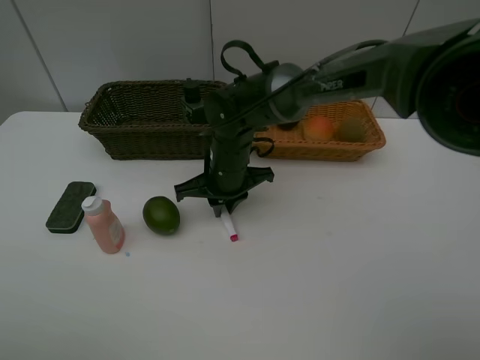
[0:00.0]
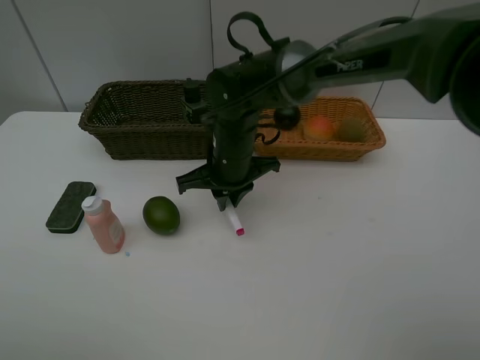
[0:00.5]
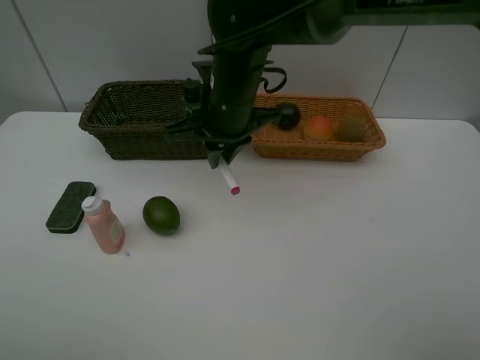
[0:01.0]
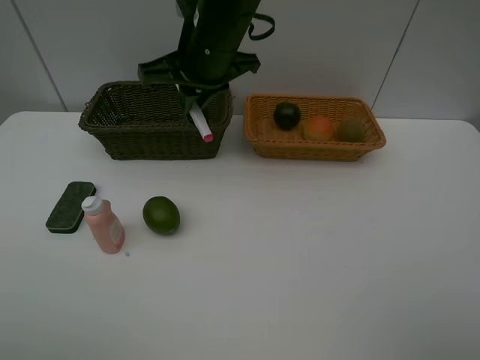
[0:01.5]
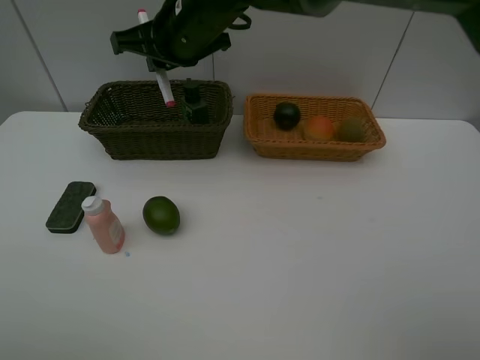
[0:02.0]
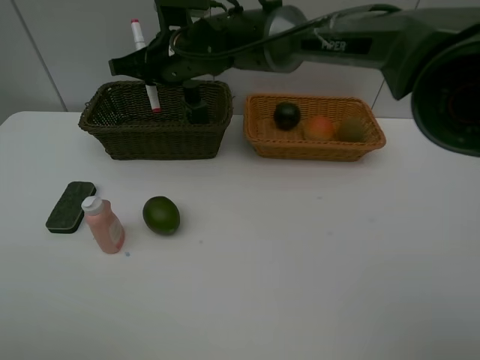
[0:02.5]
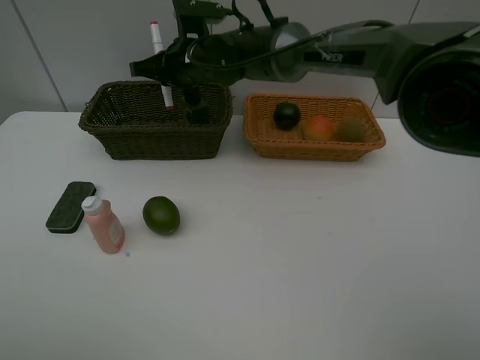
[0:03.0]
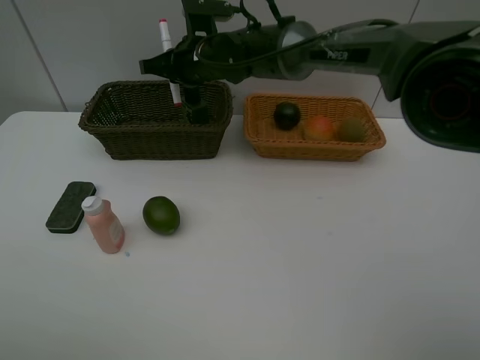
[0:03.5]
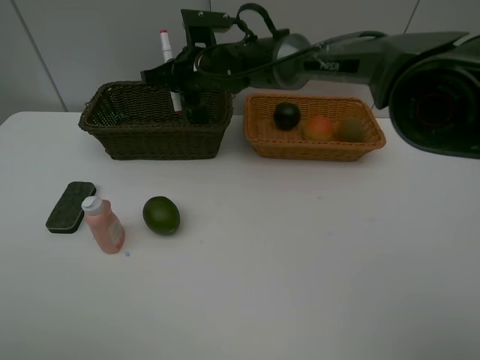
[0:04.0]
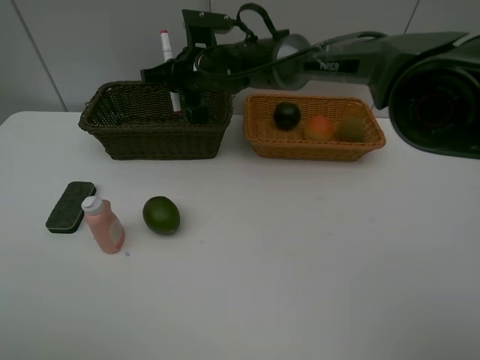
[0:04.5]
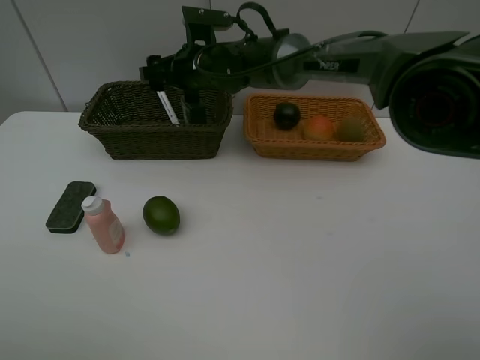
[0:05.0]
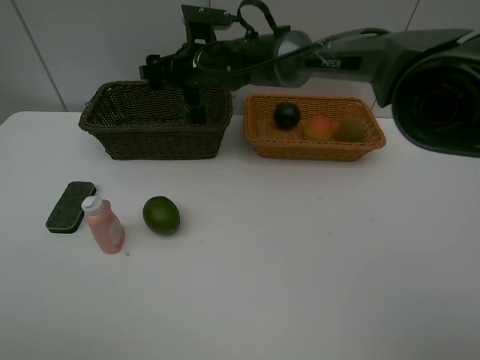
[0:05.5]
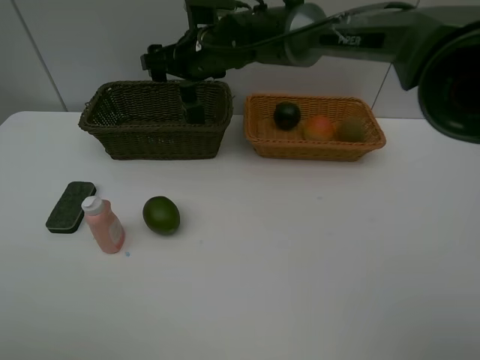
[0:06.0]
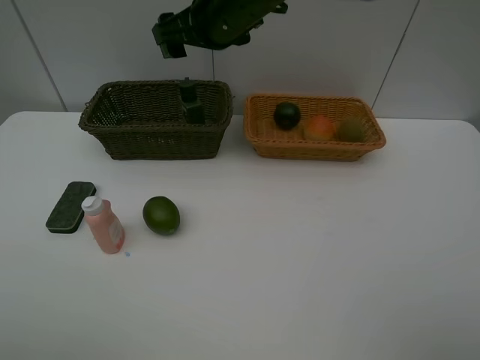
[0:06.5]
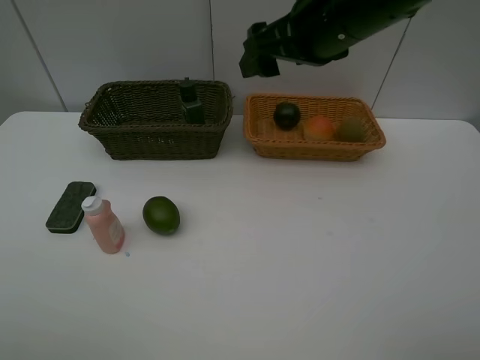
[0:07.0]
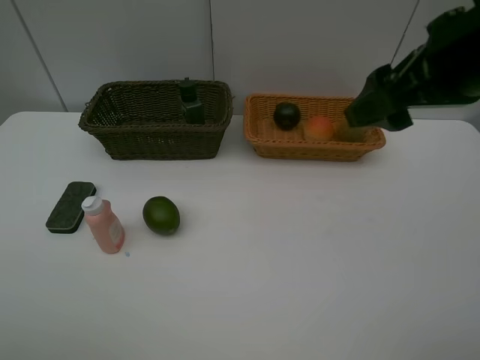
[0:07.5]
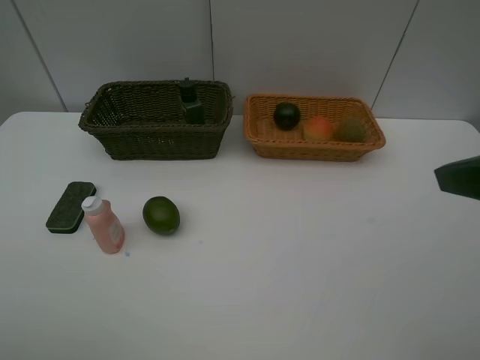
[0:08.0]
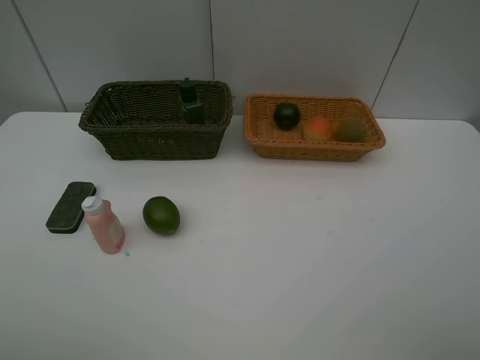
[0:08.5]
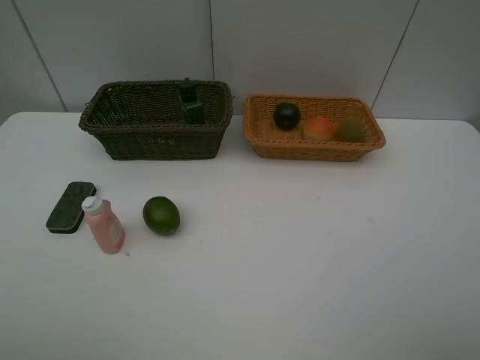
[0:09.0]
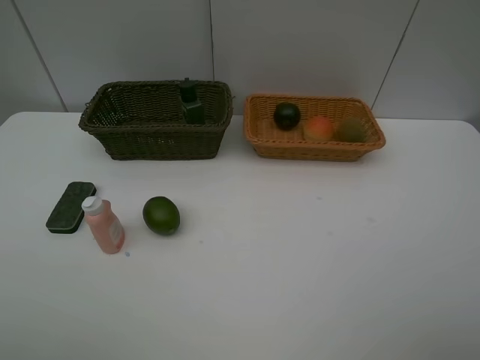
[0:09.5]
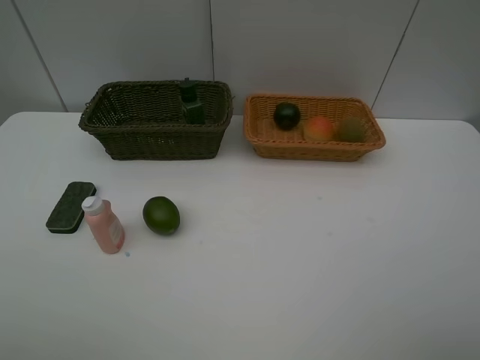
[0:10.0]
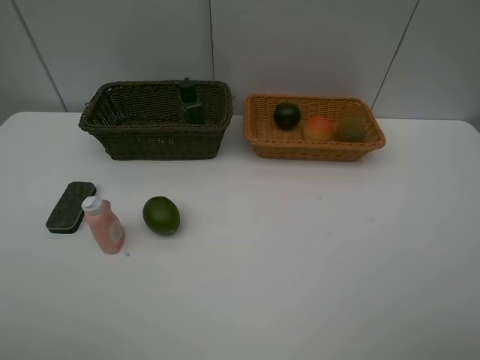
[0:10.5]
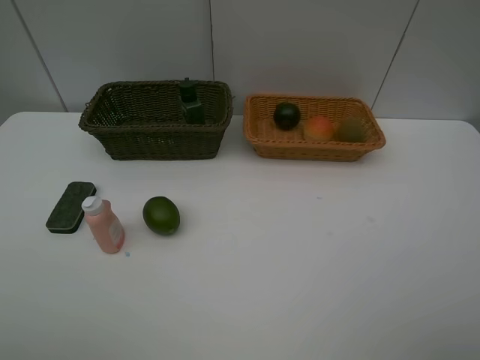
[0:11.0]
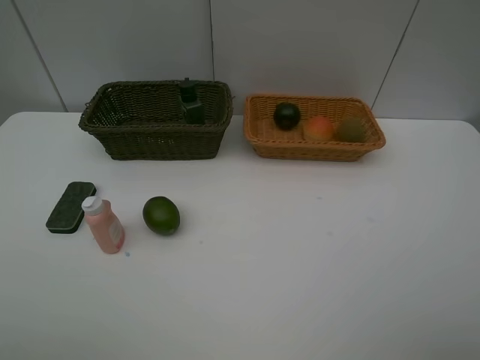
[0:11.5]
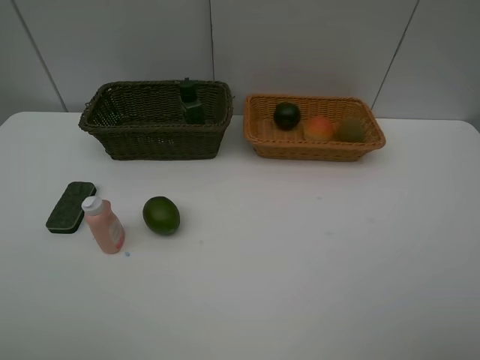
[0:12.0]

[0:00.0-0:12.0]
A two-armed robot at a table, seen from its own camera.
Task of the whole recording: Place multiple objects separately in different baskets.
Step, 0:01.0 to 0:05.5: Place the red marker in the dark basket with right gripper.
0:00.0 to 0:02.0: The right gripper moves upward, approximately 15 cm.
0:02.0 to 0:04.0: The right gripper shifts some 10 cm downward and forward.
0:04.0 to 0:06.0: The right gripper opens.
0:06.0 to 0:08.0: The right gripper shifts about 40 cm backward and to the right.
0:08.0 to 0:10.0: The right gripper shifts roughly 10 cm backward.

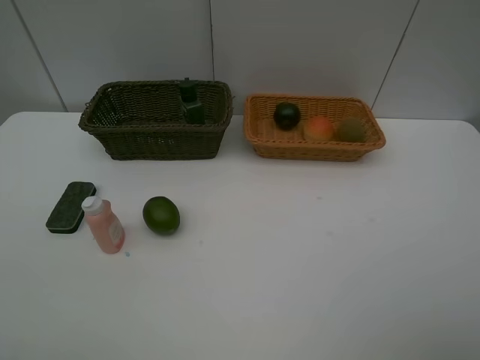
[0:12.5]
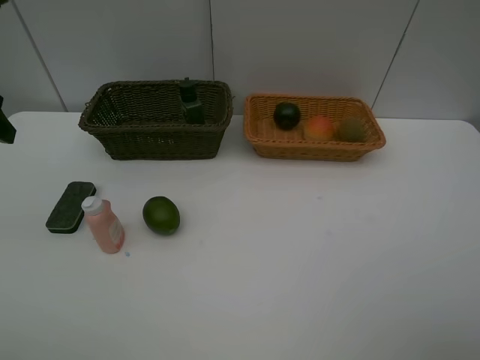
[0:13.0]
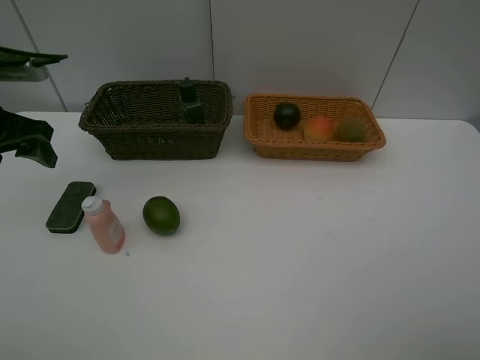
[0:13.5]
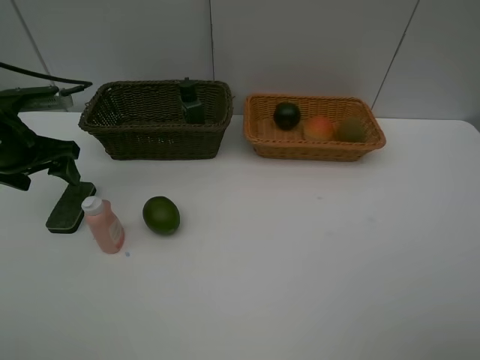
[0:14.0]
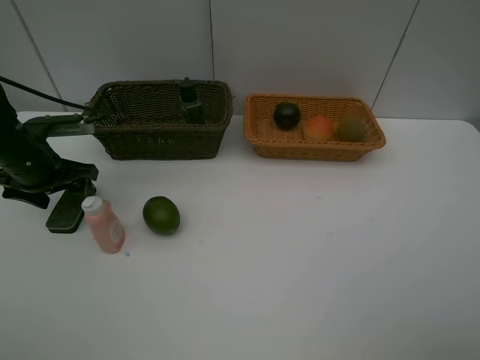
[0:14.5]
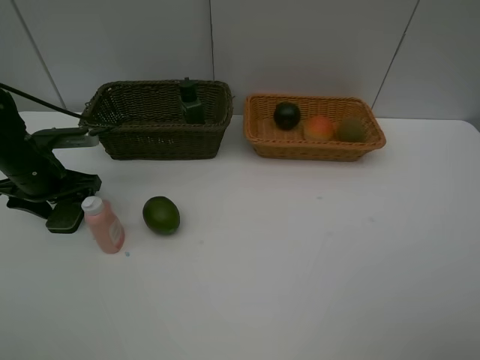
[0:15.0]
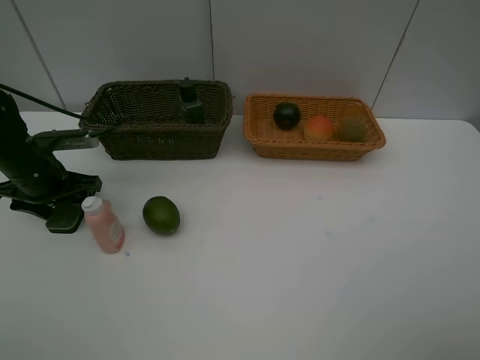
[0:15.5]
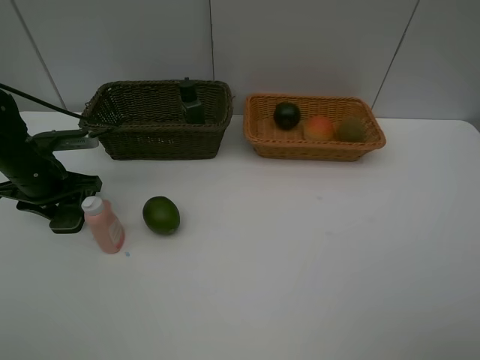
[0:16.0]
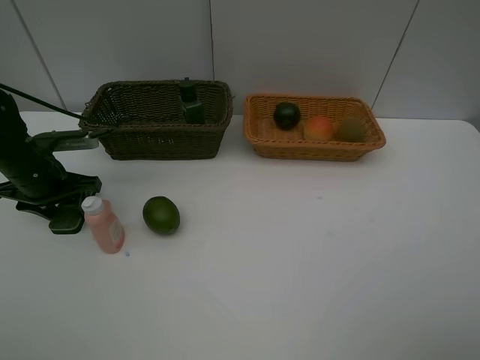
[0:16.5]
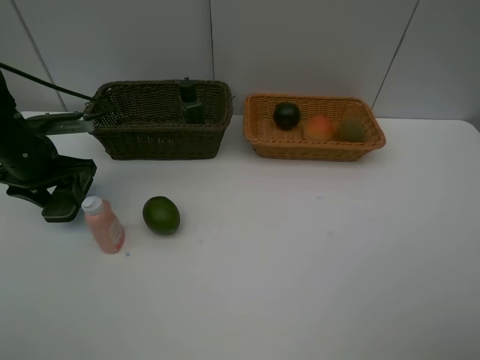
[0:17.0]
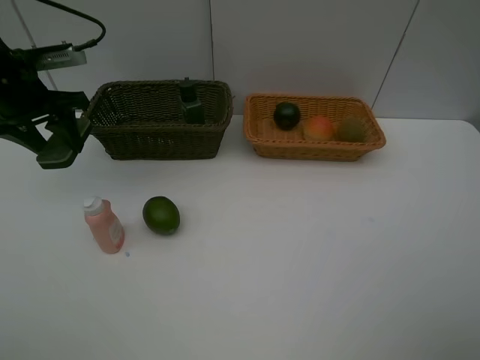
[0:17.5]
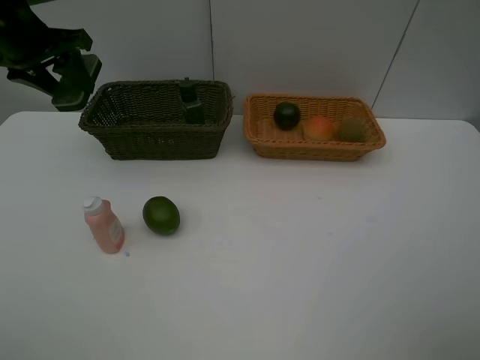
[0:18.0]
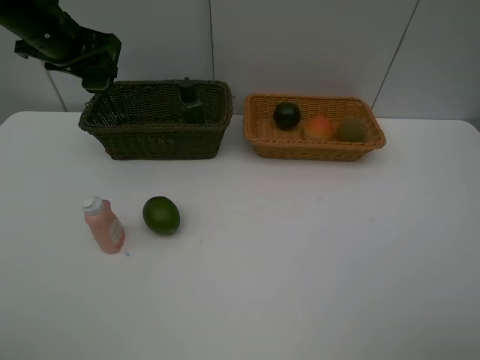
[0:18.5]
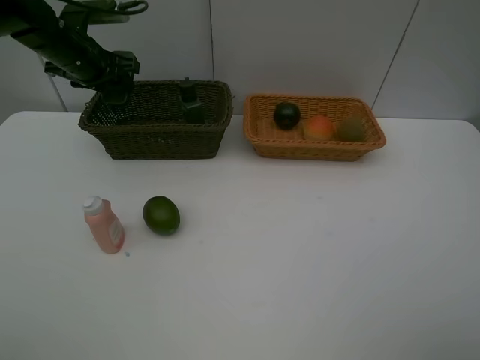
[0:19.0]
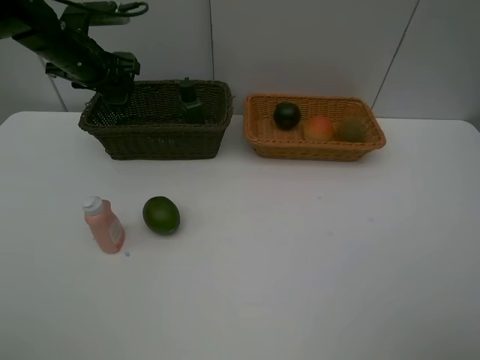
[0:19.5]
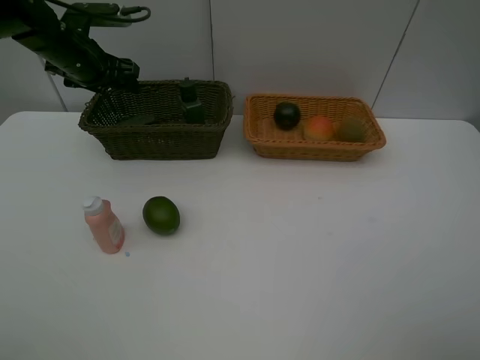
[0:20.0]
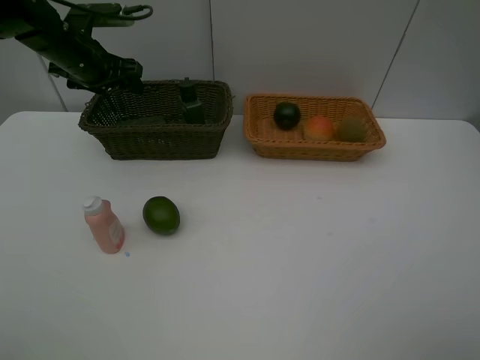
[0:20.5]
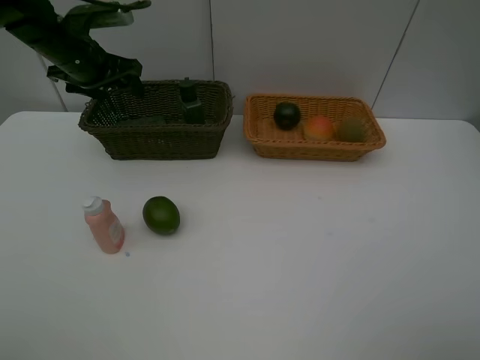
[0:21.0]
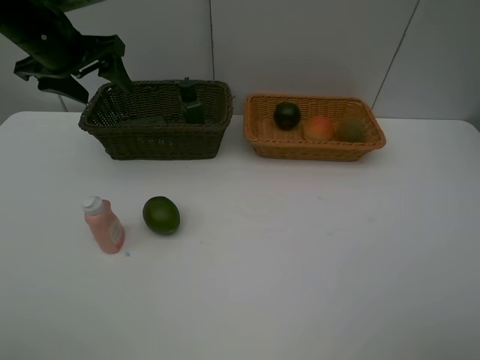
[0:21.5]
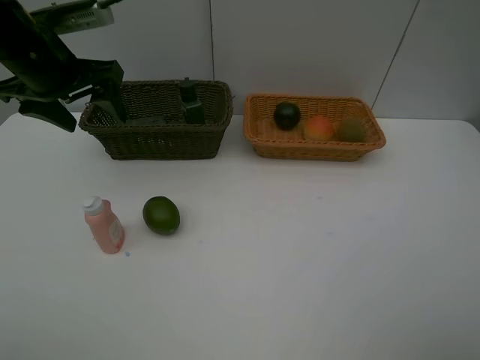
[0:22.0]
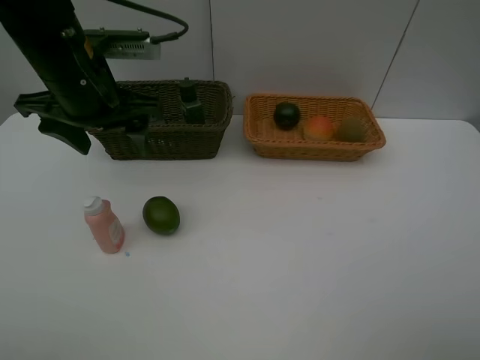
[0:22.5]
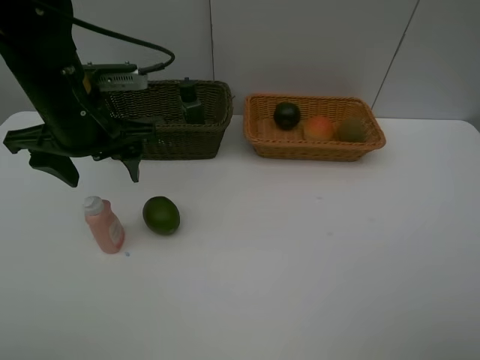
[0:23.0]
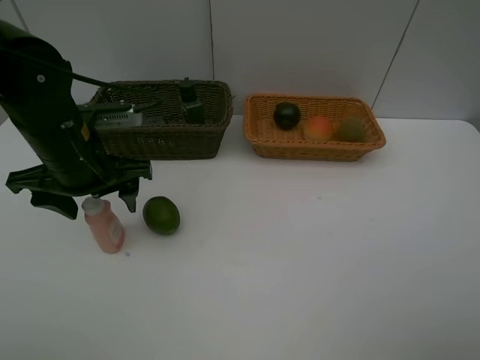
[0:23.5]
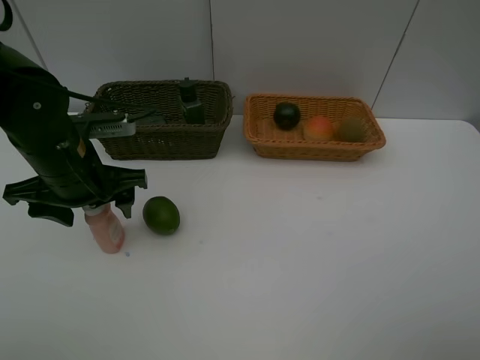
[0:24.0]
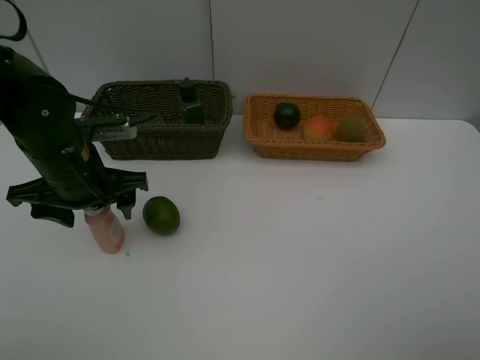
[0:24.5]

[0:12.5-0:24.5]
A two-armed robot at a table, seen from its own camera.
Task of the whole recording: Place multiple objects separately in different baskets.
Step, 0:12.5 to 0:17.0: Pick up blackboard eraser with left gripper.
Step, 0:17.5 to 0:20.0: Place the blackboard eraser in the dark basket with left gripper.
0:12.5 to 0:14.5: The left gripper heads downward and forward, covering some 30 cm.
0:14.5 to 0:16.5: The left gripper closes.
0:16.5 to 0:18.5: The left gripper is displaced upward and forward by approximately 20 cm.
0:18.5 to 0:20.5: The left gripper changes place by approximately 5 cm, and opens.
0:20.5 to 0:22.5: The left gripper moves backward and to the right, roughly 20 cm.
0:22.5 to 0:24.5: The left gripper is displaced downward by some 10 cm.

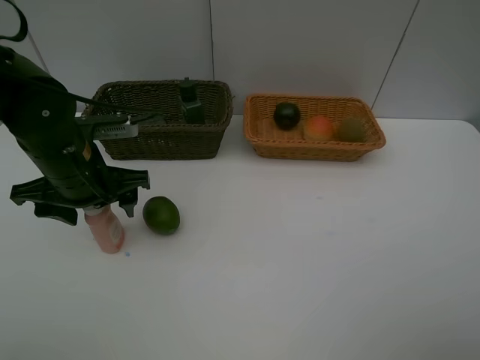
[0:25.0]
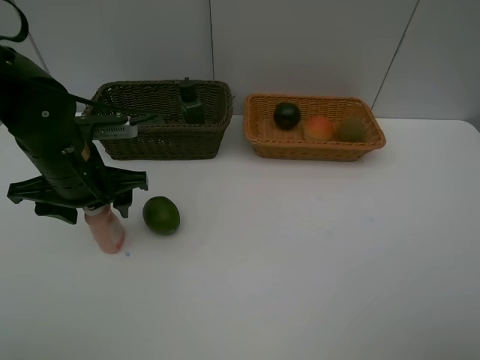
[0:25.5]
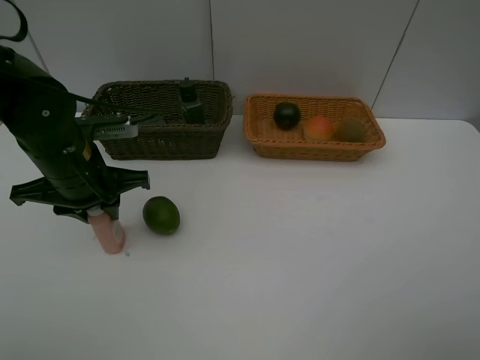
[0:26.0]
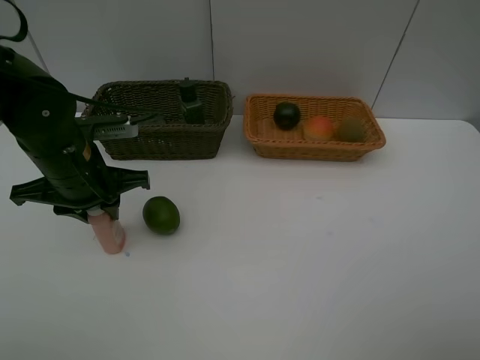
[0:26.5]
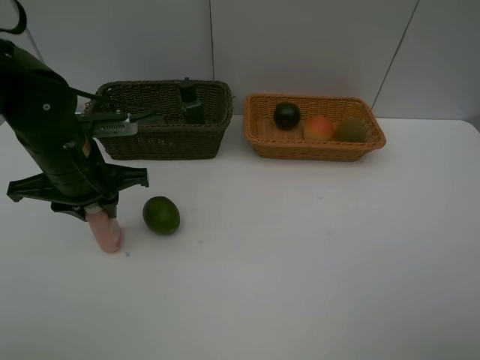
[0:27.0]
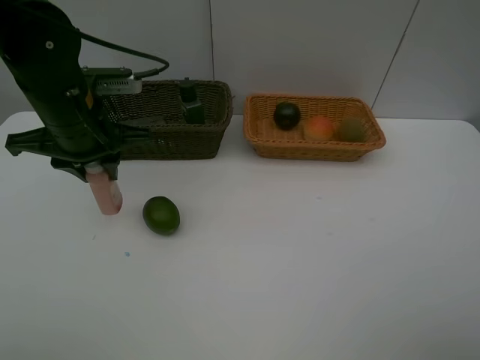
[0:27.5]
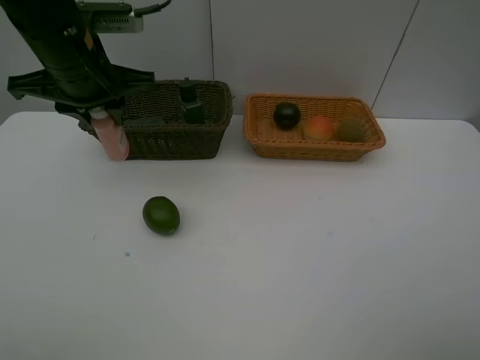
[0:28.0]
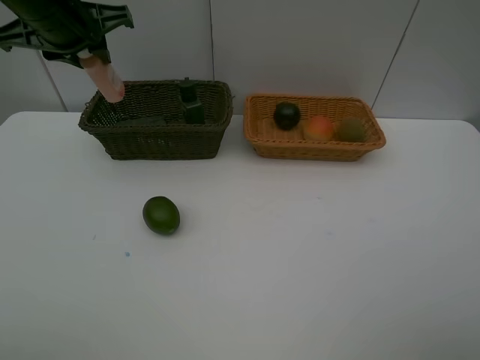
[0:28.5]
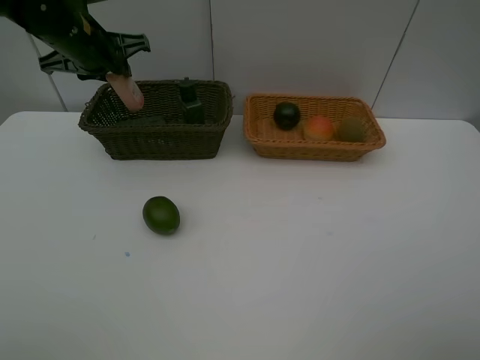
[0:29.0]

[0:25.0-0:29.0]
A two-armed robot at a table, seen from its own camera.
Task of the whole recording: Place multiple objects separately in different baskets.
Step, 0:25.0 to 0:27.0: Pick up the laundry detergent with left gripper.
0:25.0 to 0:27.0: The left gripper closes.
0:27.0 to 0:29.0: The left gripper travels forward and upward by approximately 15 cm.
